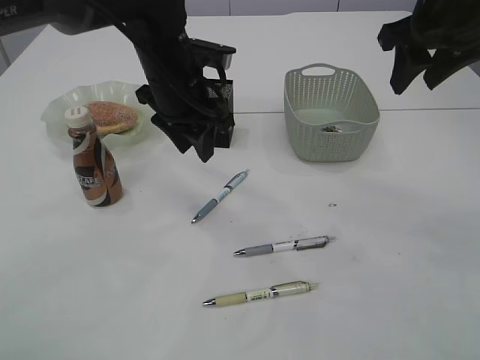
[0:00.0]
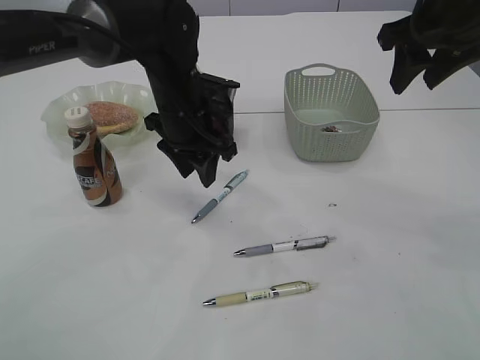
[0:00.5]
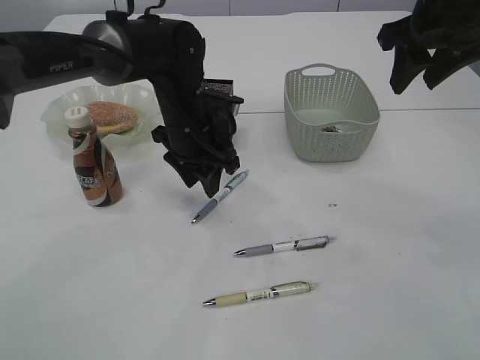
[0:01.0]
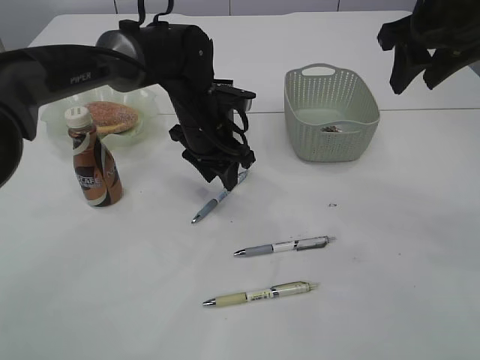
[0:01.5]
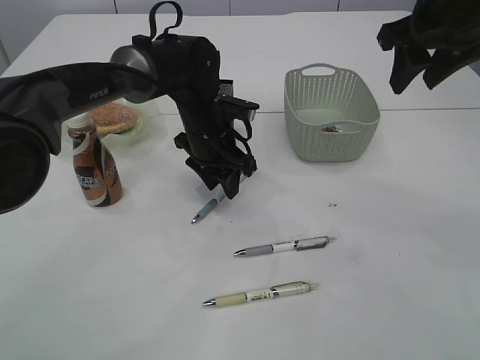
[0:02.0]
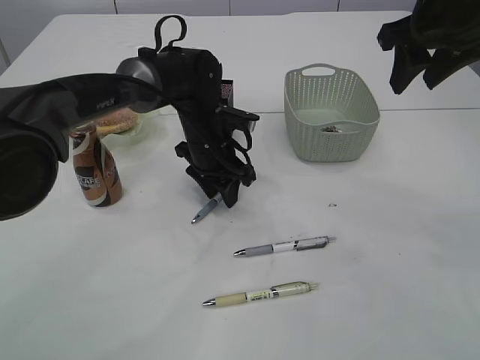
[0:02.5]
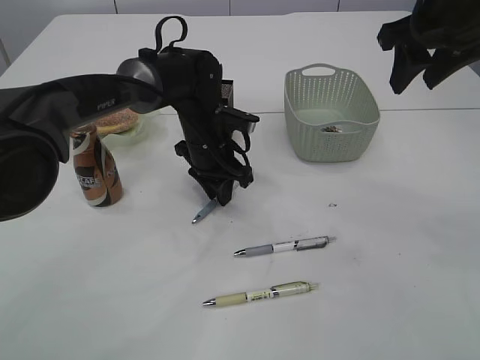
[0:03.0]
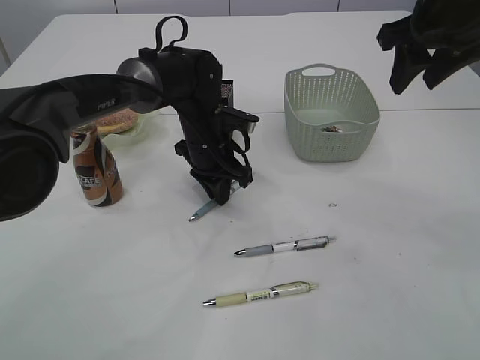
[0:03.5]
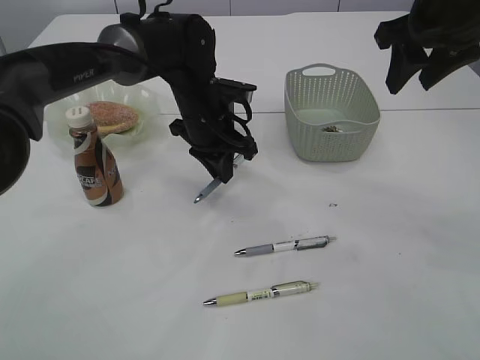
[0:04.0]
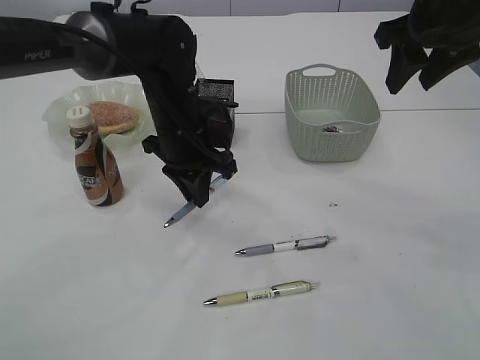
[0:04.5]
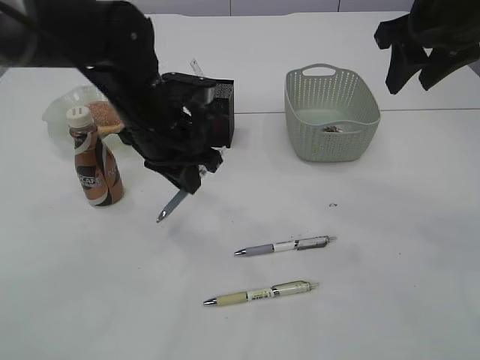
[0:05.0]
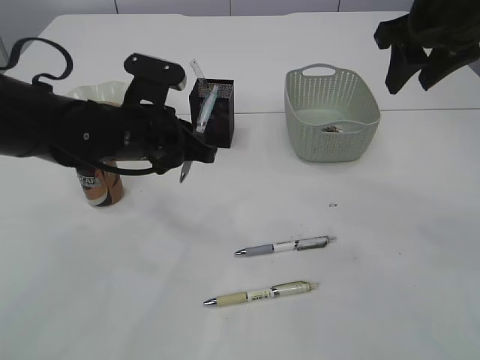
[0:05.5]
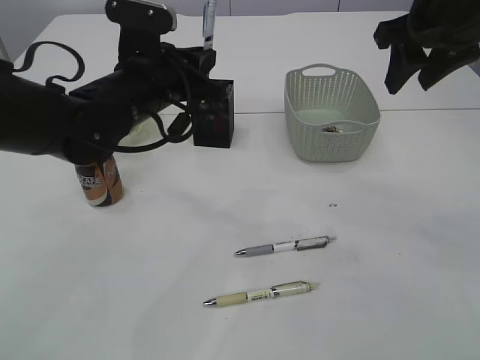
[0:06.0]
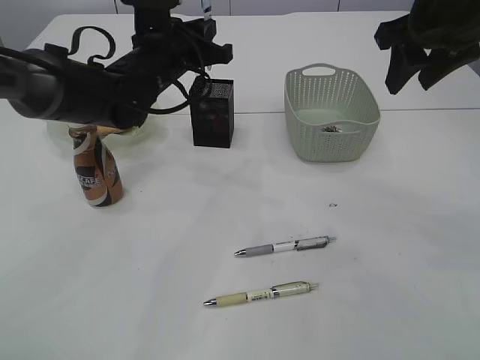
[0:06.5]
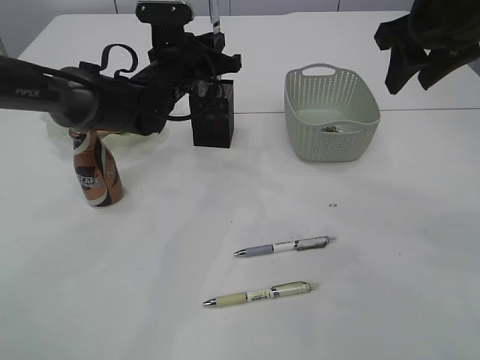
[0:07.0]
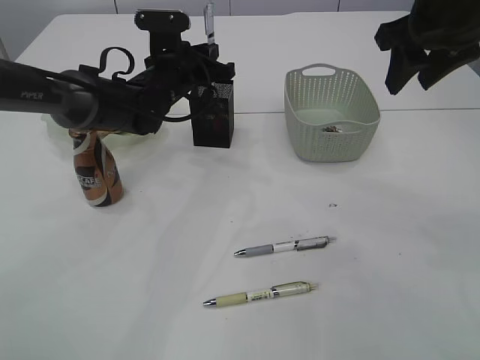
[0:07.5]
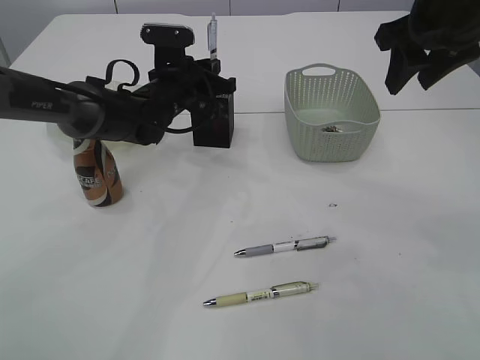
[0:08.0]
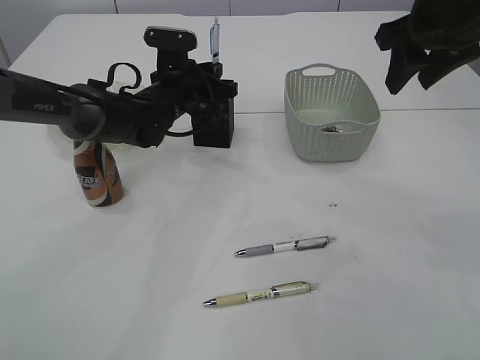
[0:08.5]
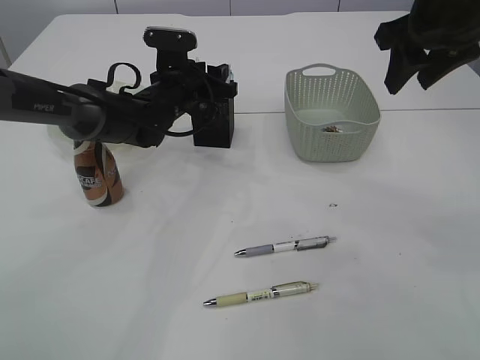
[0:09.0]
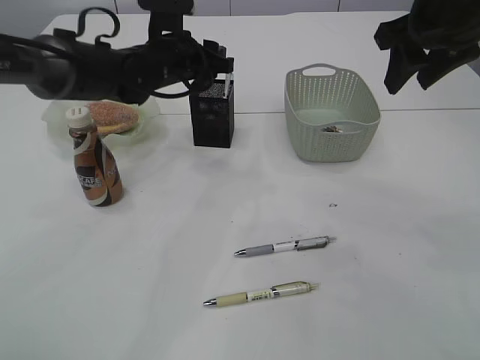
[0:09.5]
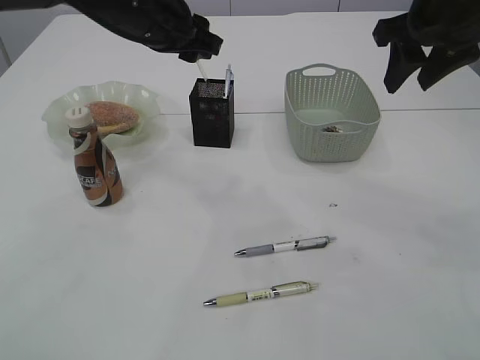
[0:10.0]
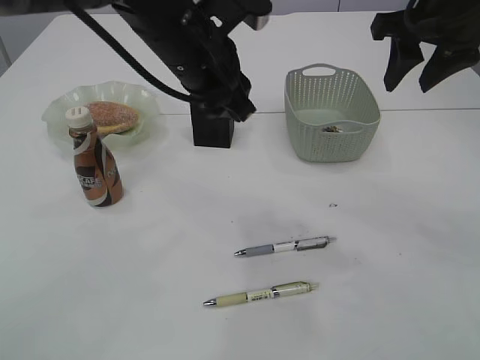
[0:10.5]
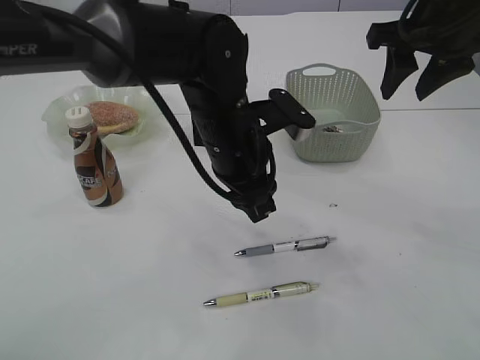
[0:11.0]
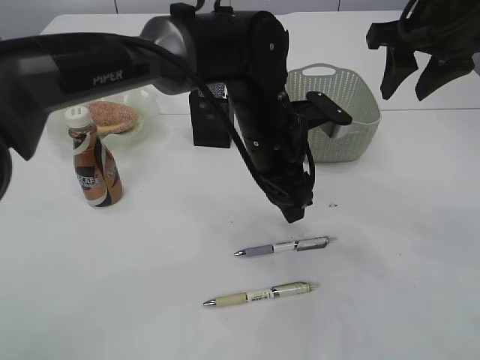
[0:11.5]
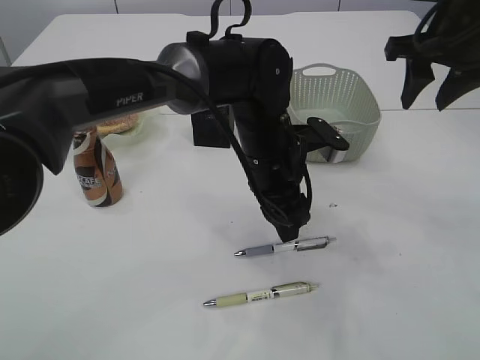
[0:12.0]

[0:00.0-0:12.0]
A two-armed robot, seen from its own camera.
Step, 0:00.0 to 0:05.0: Pick up the pen with left arm.
Step, 0:05.5 to 0:09.5: Place the pen into the pen holder.
0:00.0 to 0:02.0: The left gripper travels downward by approximately 10 cm.
0:02.0 to 0:04.0: The left gripper closes up.
0:04.0 to 0:06.0: The left gripper heads backward, upward and to the left, covering approximately 10 cm.
0:06.0 to 0:08.0: The left gripper moves forward and downward, roughly 15 cm.
0:08.0 to 0:10.0: The left gripper moves upward and backward, about 15 cm, and opens its fingers.
0:10.0 to 0:12.0: The left gripper goes roughly 20 cm to the right, downward and backward.

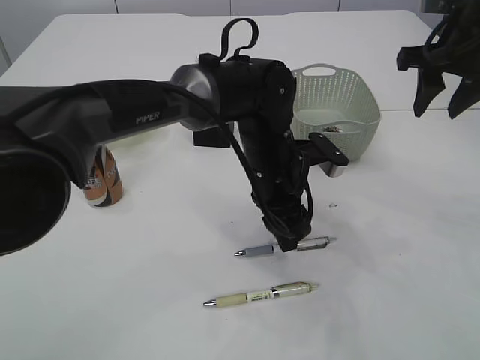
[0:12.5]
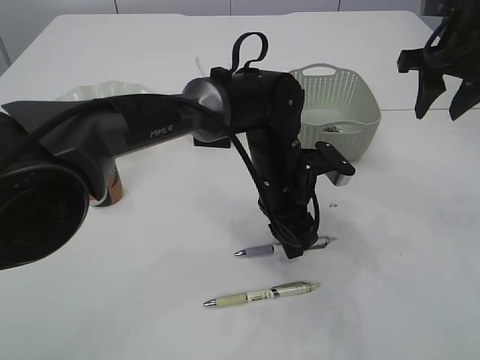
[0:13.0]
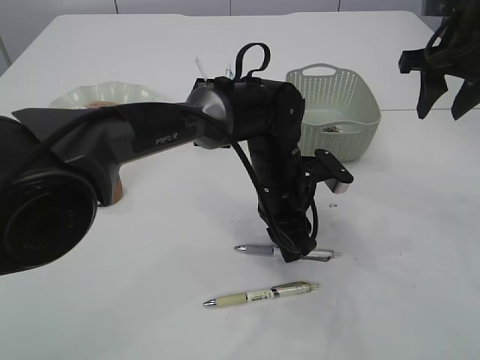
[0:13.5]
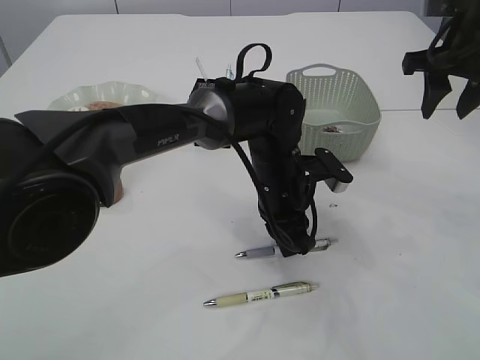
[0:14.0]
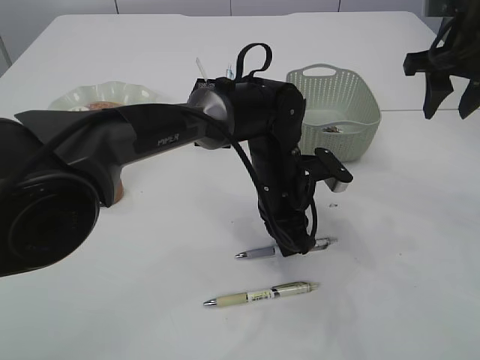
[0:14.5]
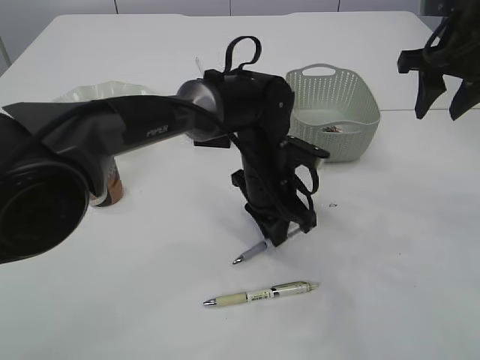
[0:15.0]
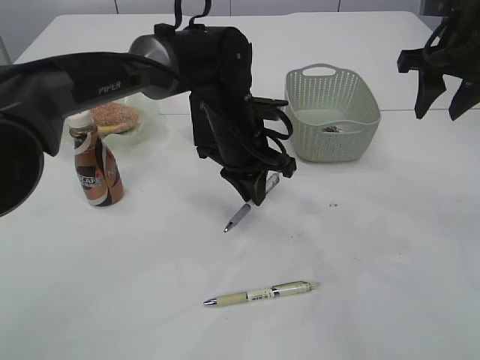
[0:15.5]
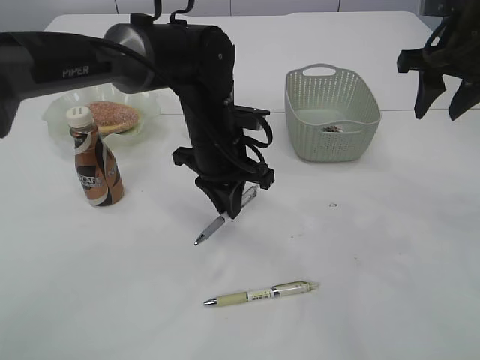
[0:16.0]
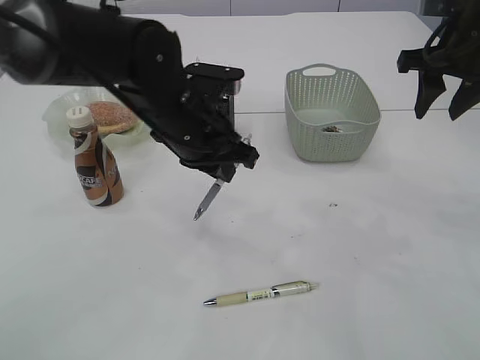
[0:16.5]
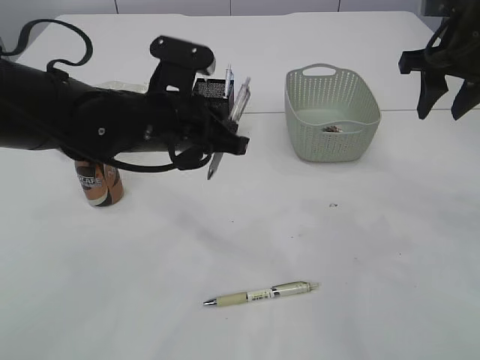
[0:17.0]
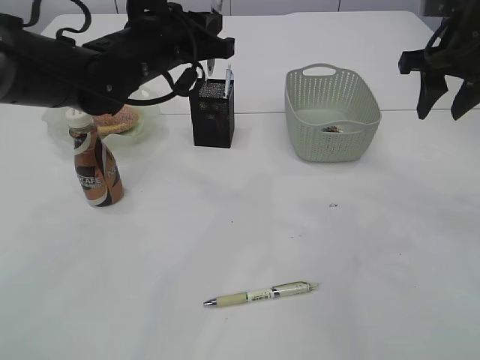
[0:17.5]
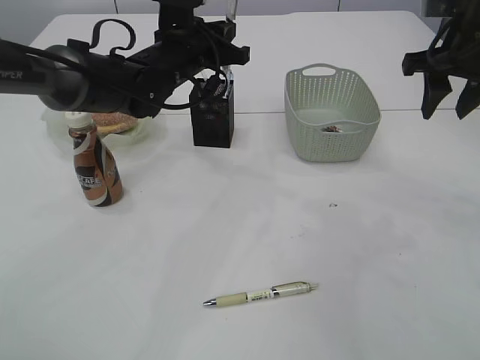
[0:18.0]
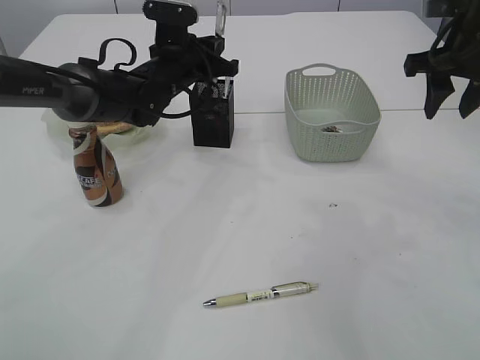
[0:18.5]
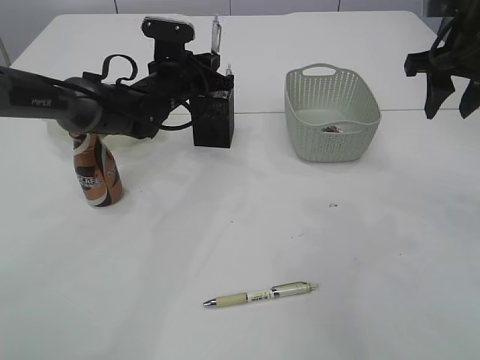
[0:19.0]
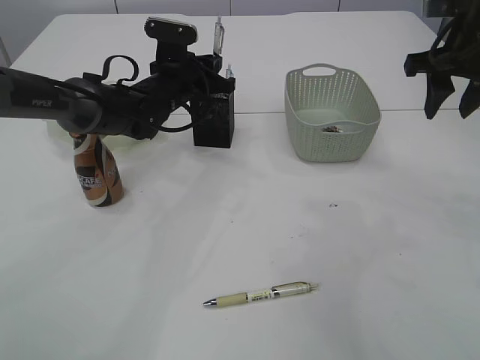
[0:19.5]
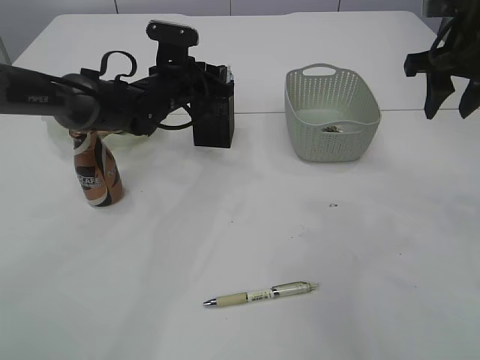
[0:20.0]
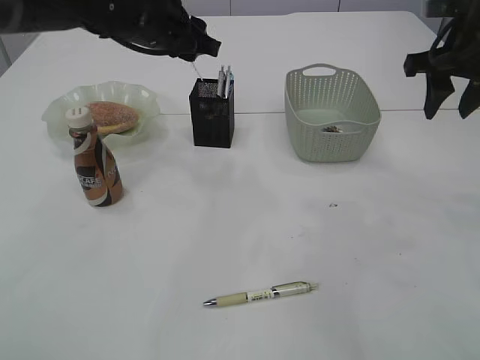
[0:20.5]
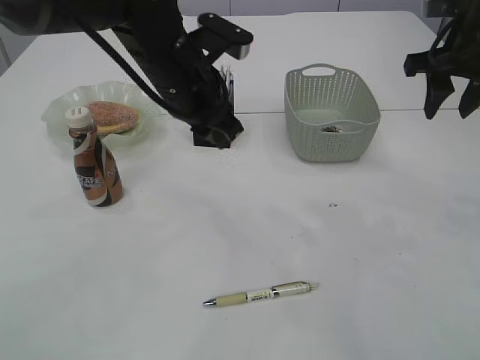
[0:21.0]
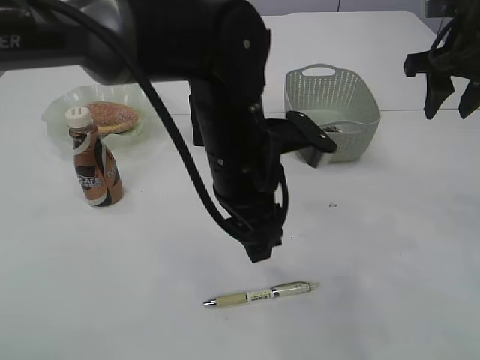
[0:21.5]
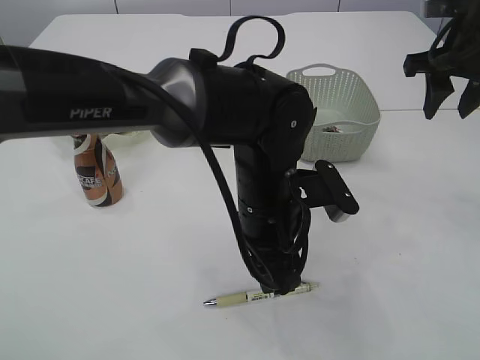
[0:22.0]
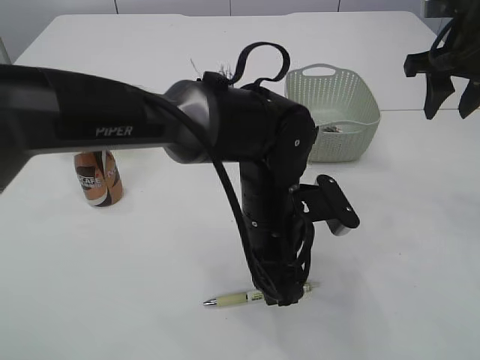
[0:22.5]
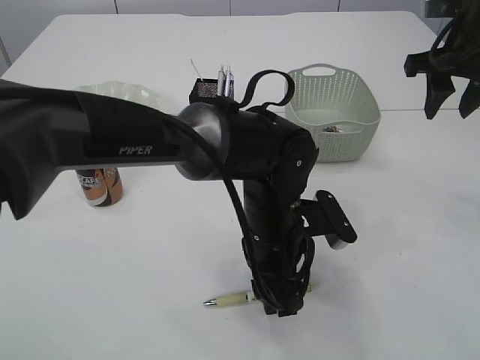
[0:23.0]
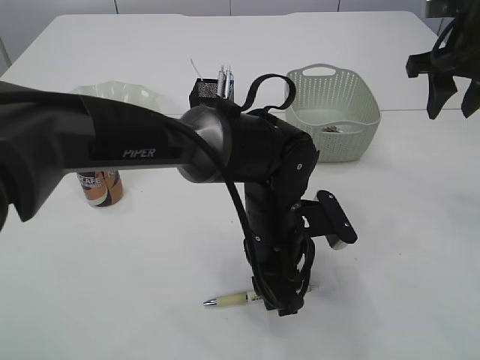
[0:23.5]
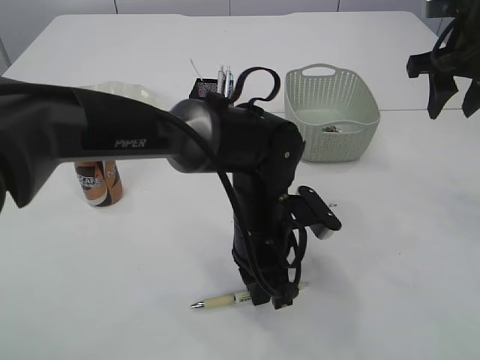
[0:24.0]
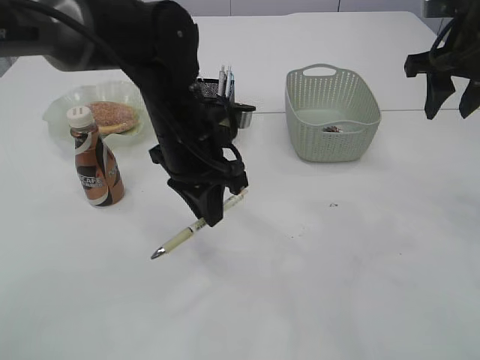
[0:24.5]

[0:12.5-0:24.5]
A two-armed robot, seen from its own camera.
Step, 0:12.5 to 0:16.5: Pick up the pen with left arm.
Step, 0:17.0 to 0:20.0: Place the pen into the pen holder.
0:12.5 to 0:14.5: The left gripper closes up.
0:14.5 to 0:16.5: The left gripper is displaced to the left and upward by about 15 cm.
0:16.5 to 0:18.5: The left gripper moves forward, about 15 cm.
0:18.5 to 0:20.5: The left gripper goes some 10 cm upward, and opens its fingers.
0:20.5 to 0:22.5: The left gripper is displaced backward, to the right and downward by about 25 cm.
0:22.5 to 0:24.5: The left gripper is displaced to the left, forward and upward by about 10 cm, and closes up.

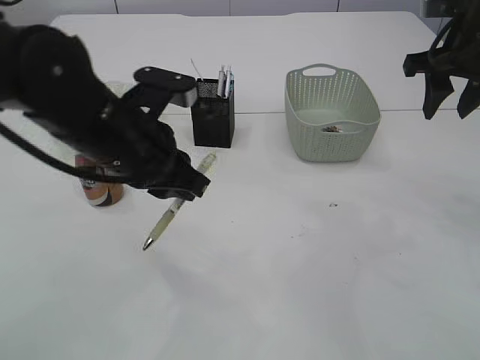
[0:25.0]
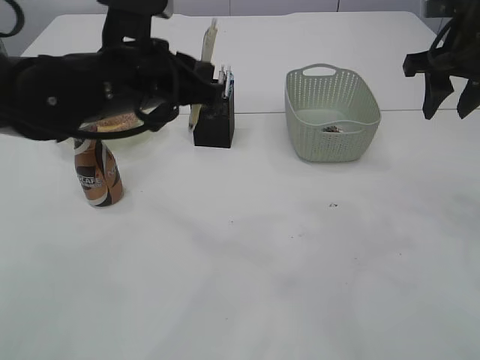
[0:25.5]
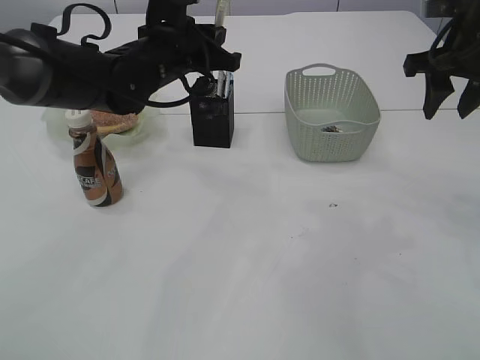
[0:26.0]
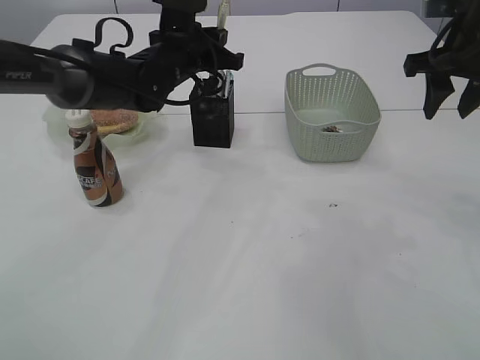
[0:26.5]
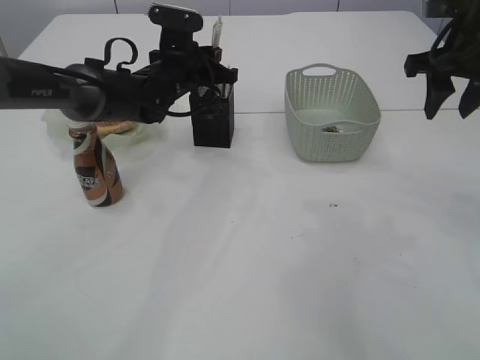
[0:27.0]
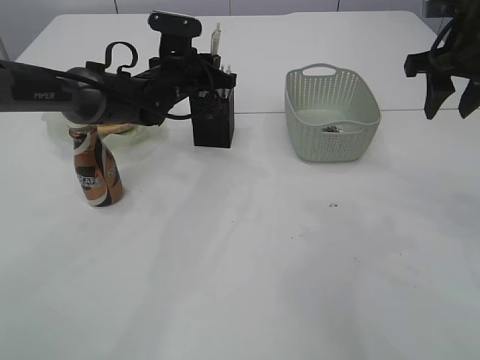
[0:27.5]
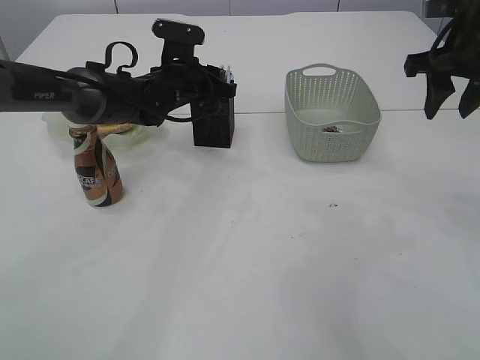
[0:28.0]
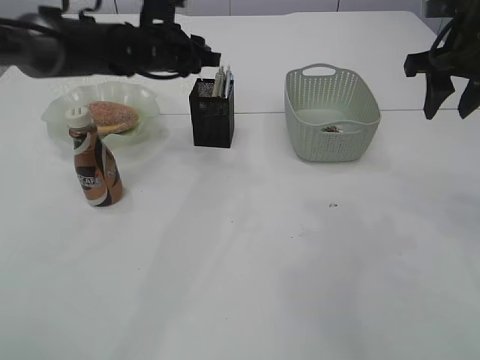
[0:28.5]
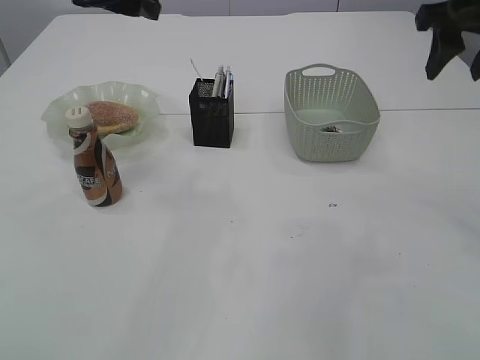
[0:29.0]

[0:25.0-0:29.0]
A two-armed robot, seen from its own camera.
Step, 0:25.0 to 0:28.5: Place the pen into the pen holder.
0:25.0 to 0:27.0: The left gripper goes some 20 cm forward.
0:27.0 to 0:29.0: The right gripper travels upward by approximately 5 cm. The left gripper heads upward, to the left and backward, covering approximately 20 cm, and opens up.
